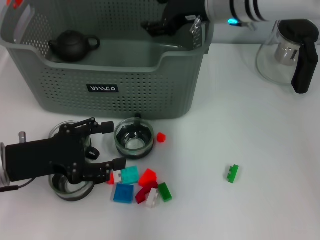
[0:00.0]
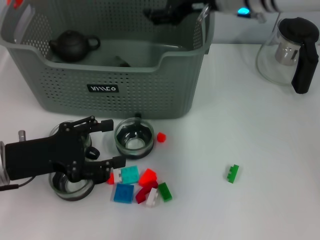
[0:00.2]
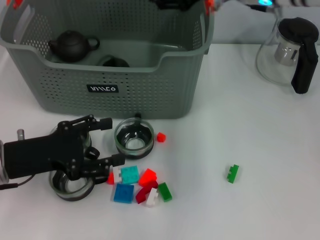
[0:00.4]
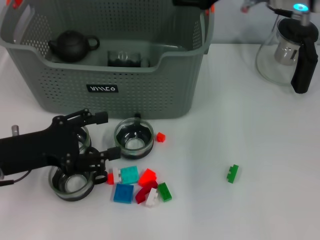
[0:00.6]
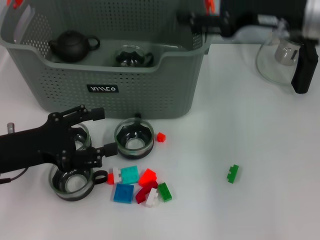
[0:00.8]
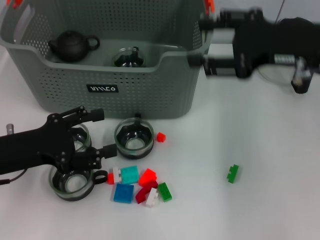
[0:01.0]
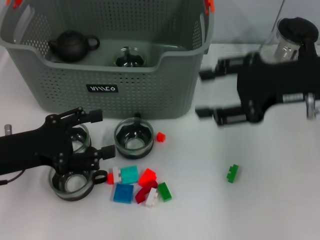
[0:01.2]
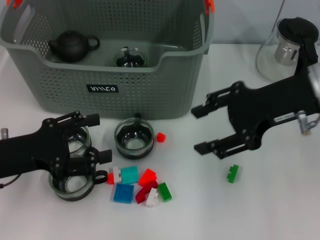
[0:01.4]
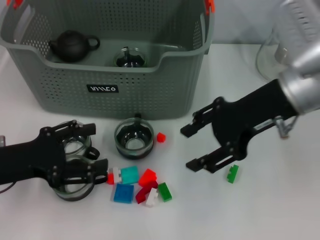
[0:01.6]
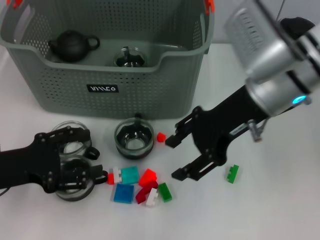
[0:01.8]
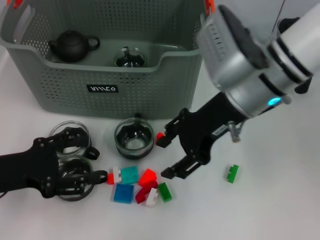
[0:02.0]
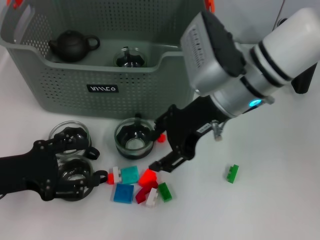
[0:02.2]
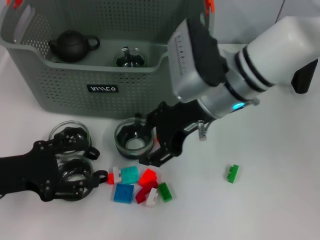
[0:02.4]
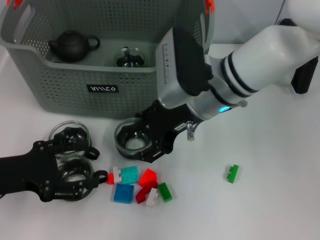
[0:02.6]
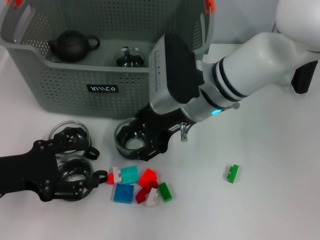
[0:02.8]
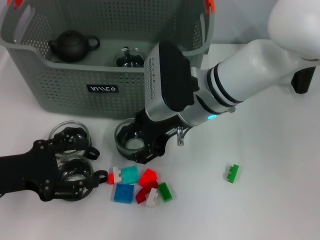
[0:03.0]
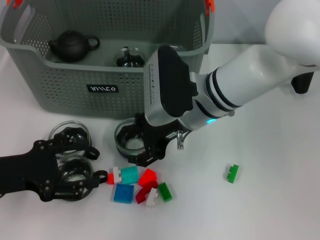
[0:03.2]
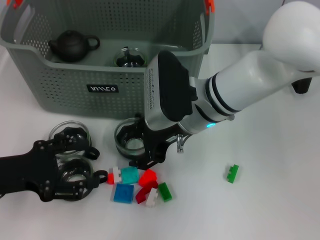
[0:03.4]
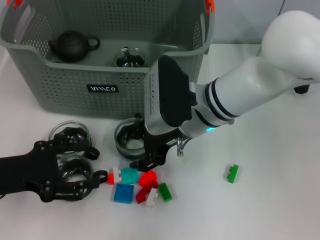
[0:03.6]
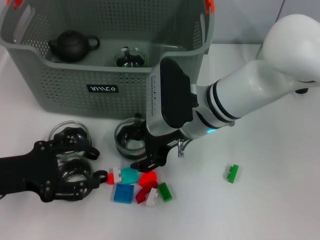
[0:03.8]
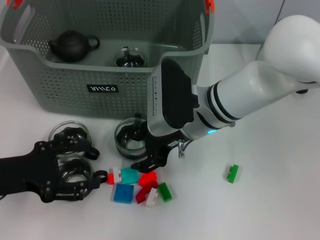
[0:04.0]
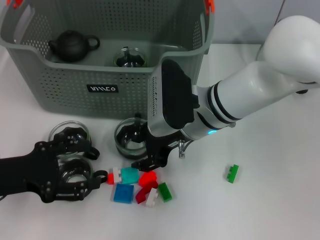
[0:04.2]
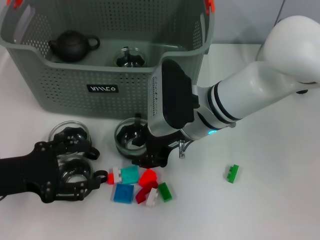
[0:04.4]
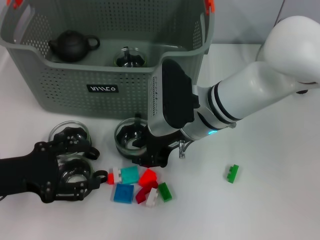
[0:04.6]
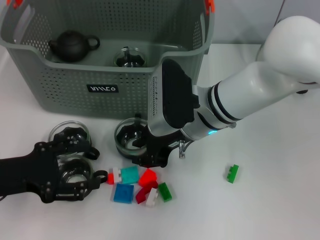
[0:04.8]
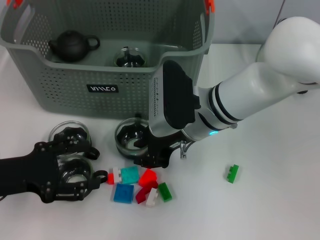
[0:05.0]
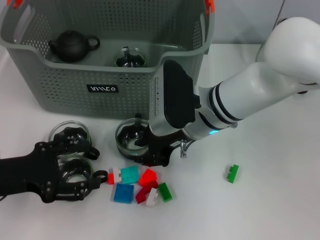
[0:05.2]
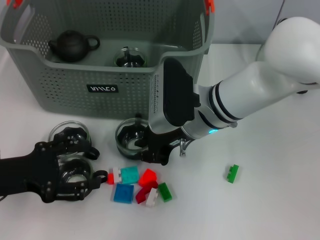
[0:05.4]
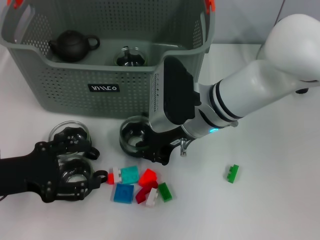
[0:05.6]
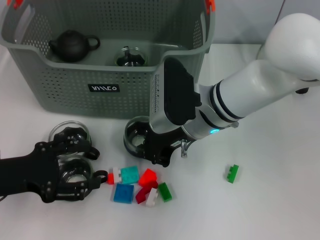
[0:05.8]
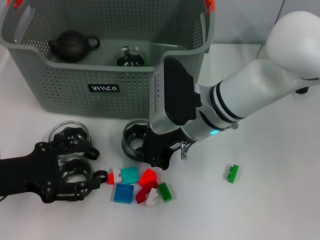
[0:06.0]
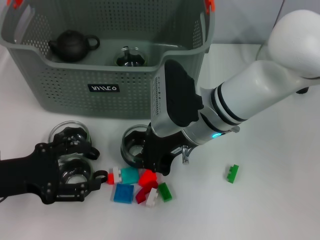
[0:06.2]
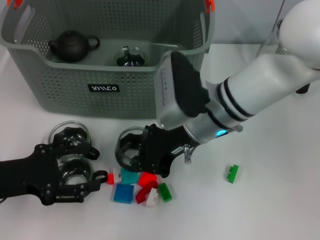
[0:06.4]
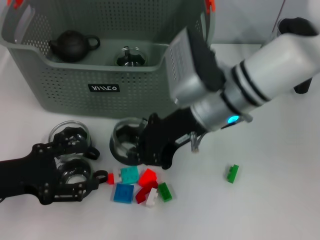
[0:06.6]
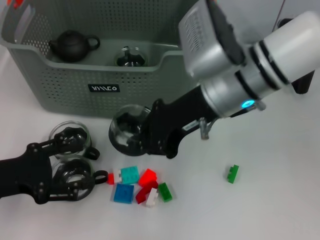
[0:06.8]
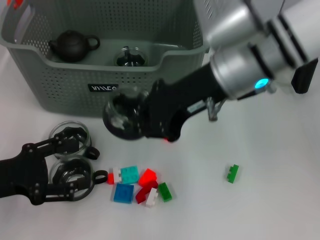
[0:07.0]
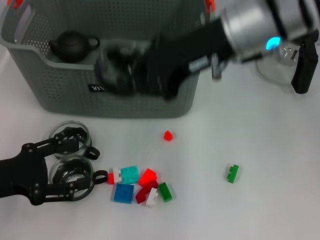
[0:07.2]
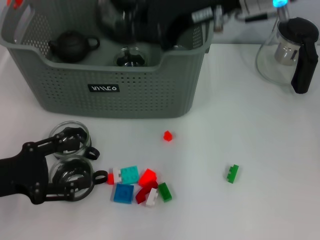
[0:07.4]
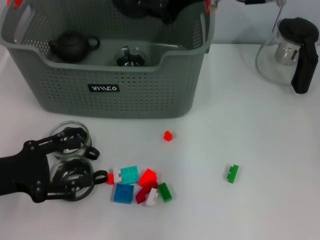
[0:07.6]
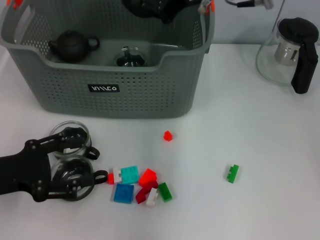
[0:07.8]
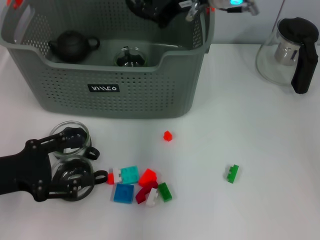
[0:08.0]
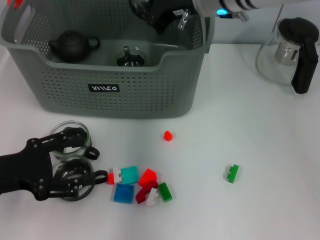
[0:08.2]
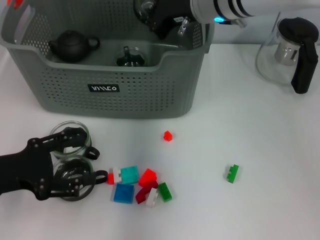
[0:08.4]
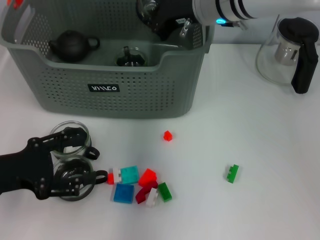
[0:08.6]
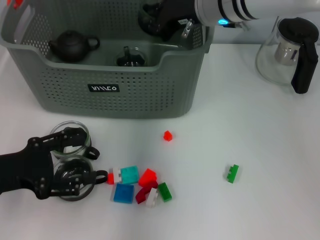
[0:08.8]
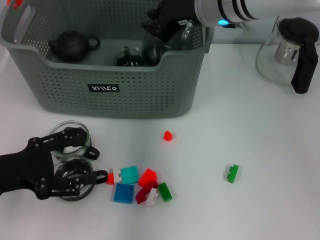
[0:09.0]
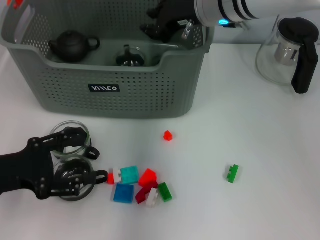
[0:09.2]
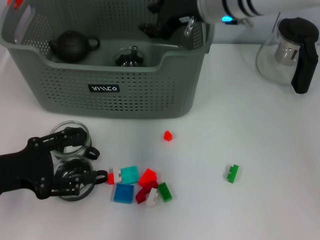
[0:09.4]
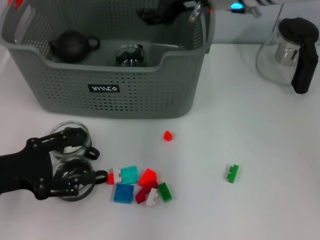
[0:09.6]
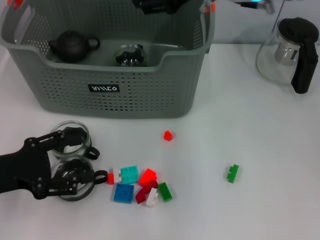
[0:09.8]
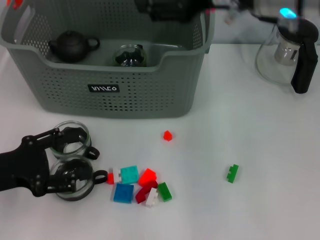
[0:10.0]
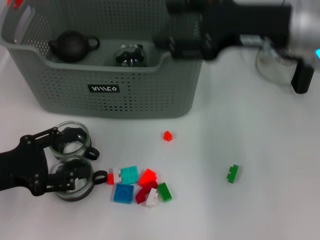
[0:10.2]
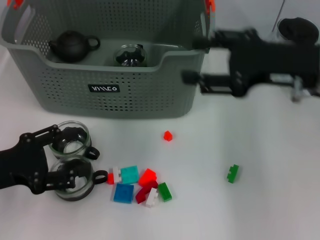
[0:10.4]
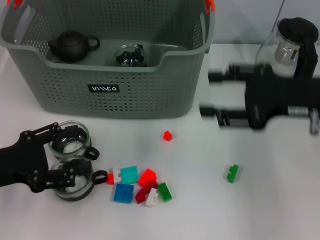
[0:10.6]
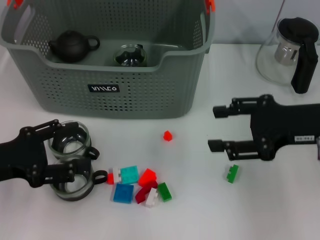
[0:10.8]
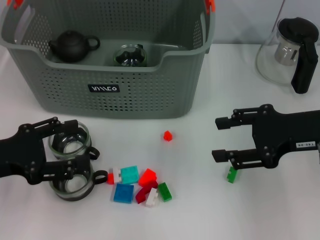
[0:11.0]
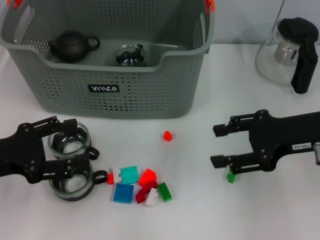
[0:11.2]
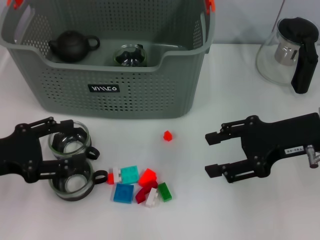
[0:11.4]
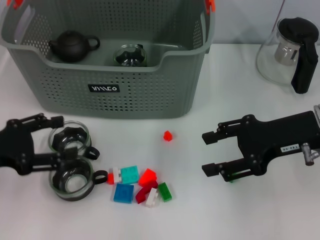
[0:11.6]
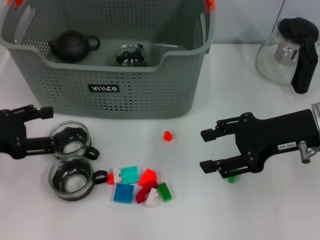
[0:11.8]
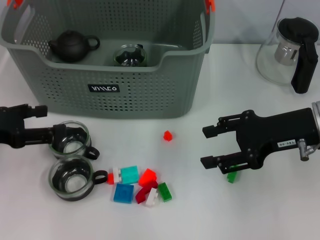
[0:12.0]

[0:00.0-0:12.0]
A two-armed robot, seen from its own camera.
Task of the whole recording: pick up the teacup on the table and place it into the storage bin, pick up the block on the table and place it into the storage bin.
Step, 0:00.0 to 0:05.8: Grasp the cup with right gripper.
Step, 0:06.0 to 0:09.0: Place the cup in the storage box with right gripper.
0:00.0 to 0:01.6: The right gripper heads backward and to the right, covering approximately 15 cm.
0:01.6 to 0:03.0: The right gripper goes about 15 cm to the left and downward.
0:03.0 to 0:04.4: The grippers stay close to where they were, moving slightly.
0:04.4 to 0:06.0: The right gripper closes its fingers.
0:06.0 to 0:07.6: The right gripper heads upward, covering roughly 15 cm.
0:07.6 to 0:09.0: The right gripper moves downward, approximately 10 cm.
0:09.0 to 0:10.4: The right gripper moves to the right and backward, about 20 cm, and opens.
0:10.4 to 0:12.0: The left gripper moves approximately 5 cm; the right gripper goes about 5 cm downward.

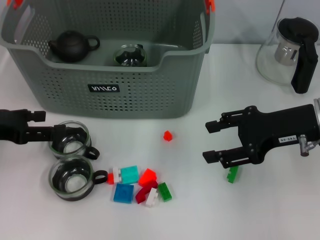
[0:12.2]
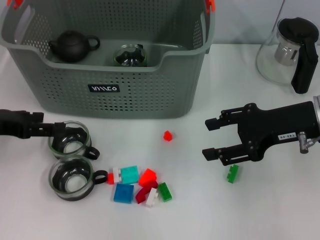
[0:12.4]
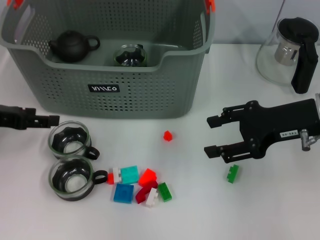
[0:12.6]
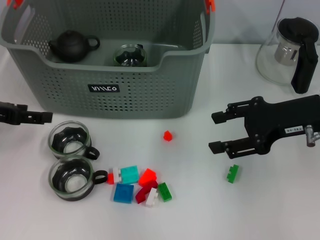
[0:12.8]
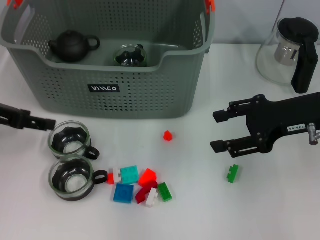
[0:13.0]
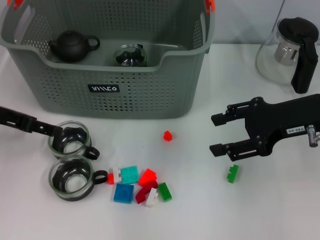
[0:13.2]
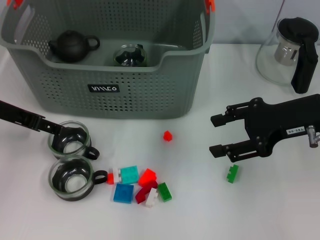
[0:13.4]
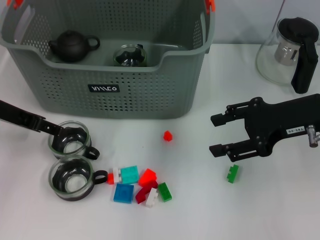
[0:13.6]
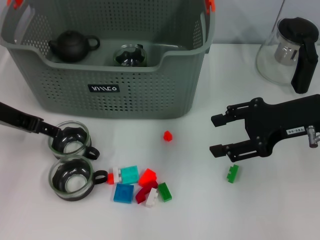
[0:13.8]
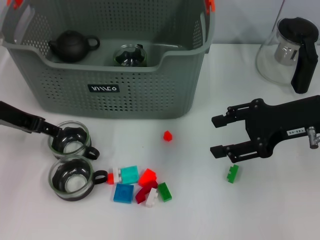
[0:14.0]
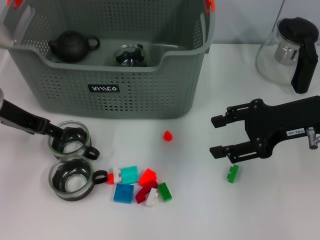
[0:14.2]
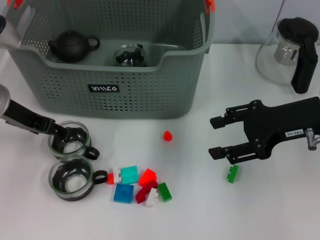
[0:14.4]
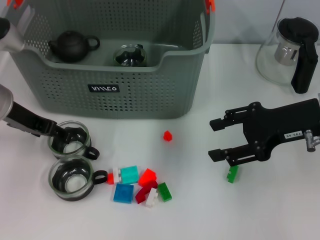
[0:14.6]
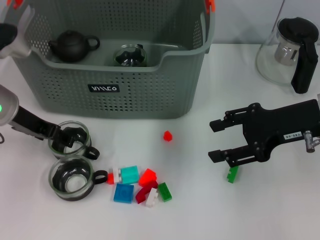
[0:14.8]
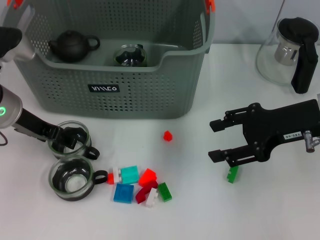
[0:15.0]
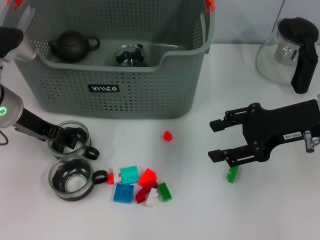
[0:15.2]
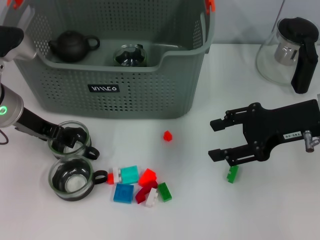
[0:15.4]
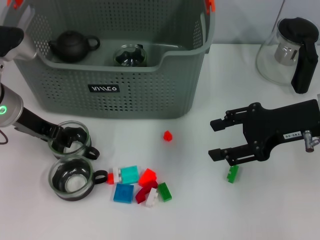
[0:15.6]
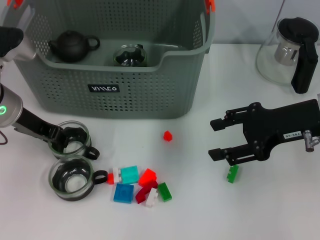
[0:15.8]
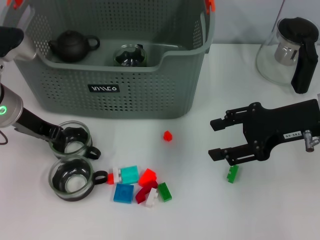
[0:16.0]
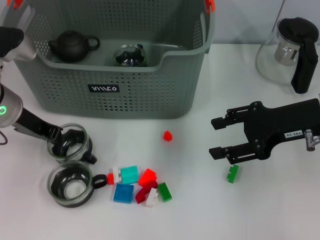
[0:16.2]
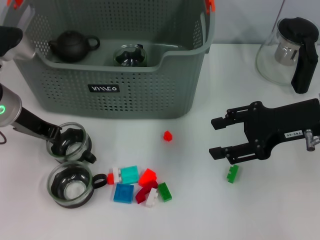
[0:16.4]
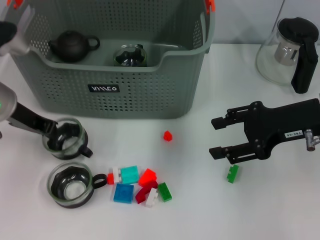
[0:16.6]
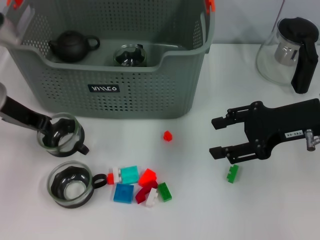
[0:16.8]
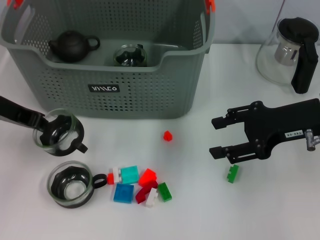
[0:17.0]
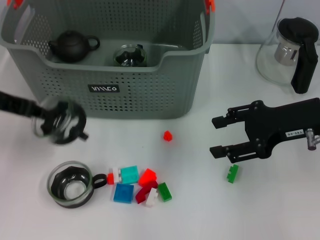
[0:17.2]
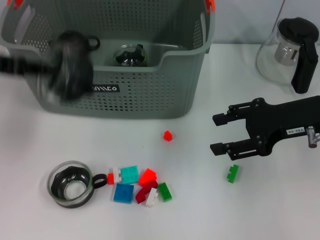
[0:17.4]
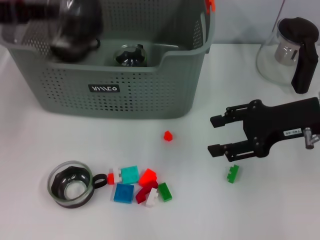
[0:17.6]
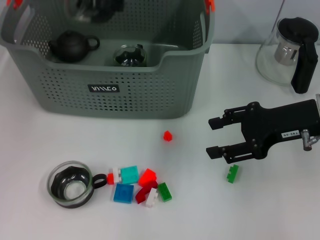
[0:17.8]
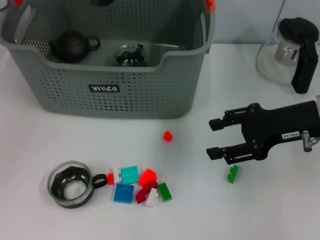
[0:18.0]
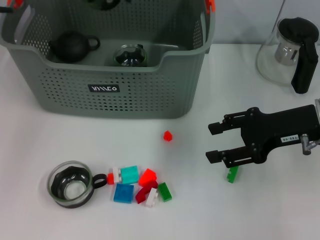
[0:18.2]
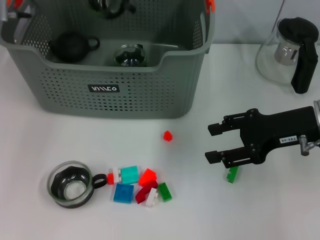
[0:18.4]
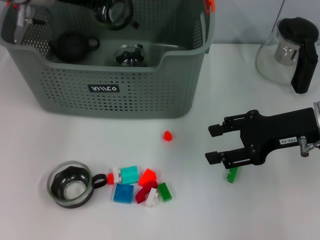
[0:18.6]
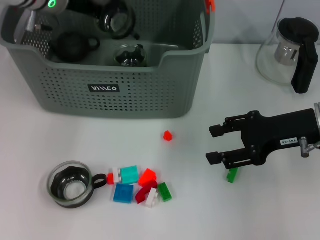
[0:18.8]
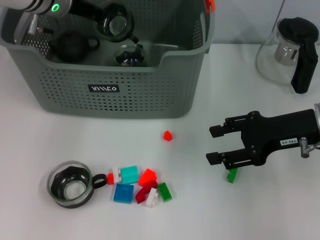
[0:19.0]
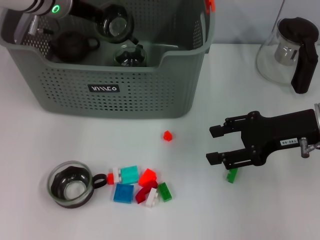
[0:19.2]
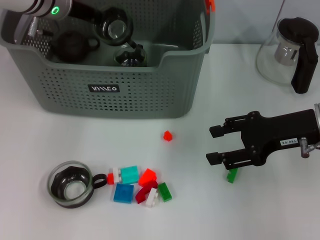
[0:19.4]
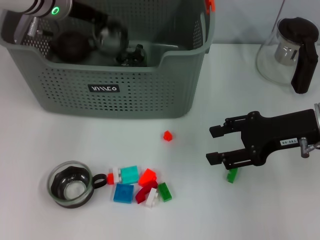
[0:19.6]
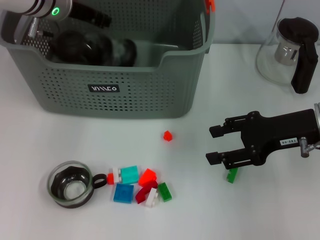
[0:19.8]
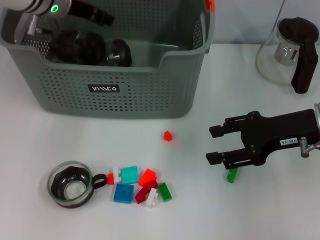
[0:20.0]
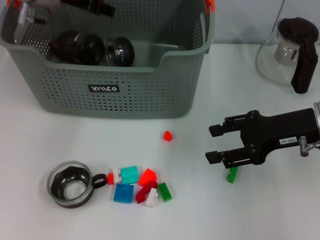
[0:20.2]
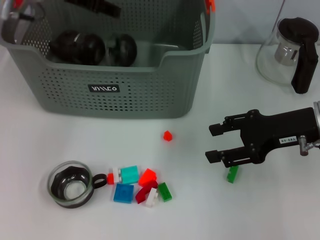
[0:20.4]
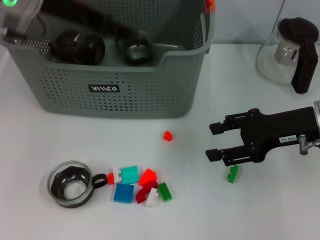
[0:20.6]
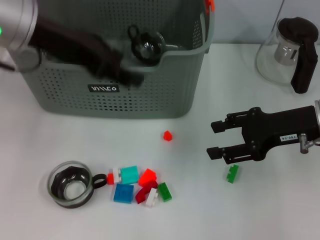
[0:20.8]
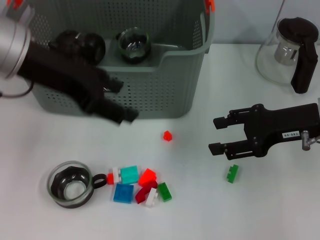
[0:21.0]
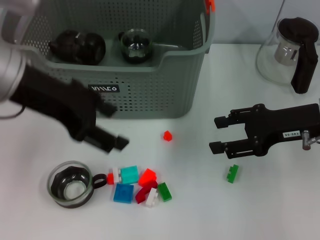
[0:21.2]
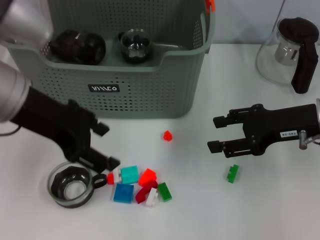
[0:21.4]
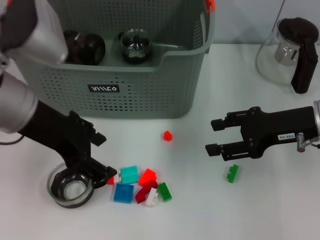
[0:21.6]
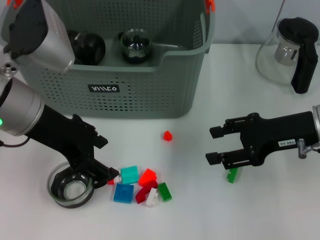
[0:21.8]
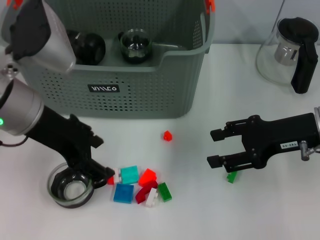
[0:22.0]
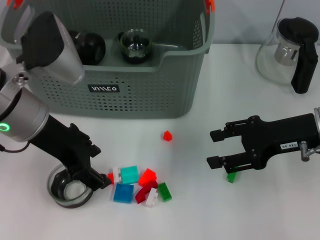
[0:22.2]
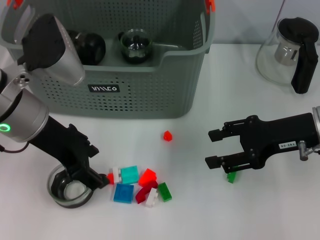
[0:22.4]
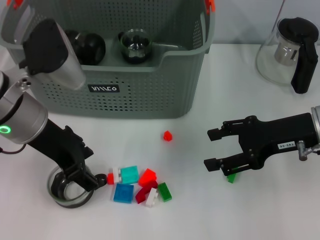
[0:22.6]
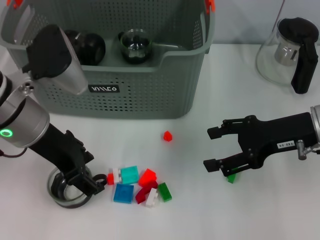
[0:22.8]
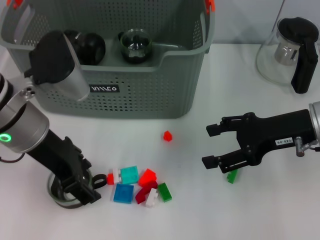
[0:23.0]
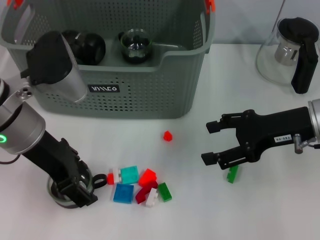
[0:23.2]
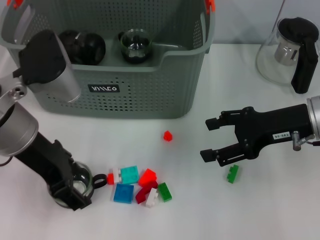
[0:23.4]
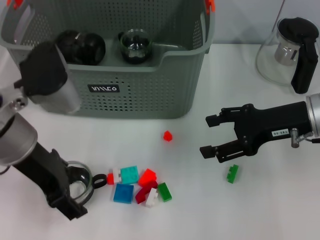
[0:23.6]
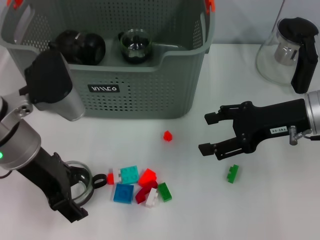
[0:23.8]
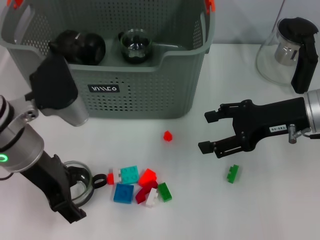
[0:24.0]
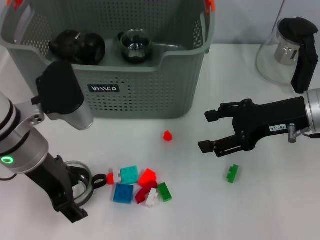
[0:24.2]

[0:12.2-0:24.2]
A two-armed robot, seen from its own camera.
Task of the whole recording: pick up the teacup on the table and place it into the storage bin, pick up the block on the table and place it into the storage bin.
Step, 0:12.2 to 0:16.4: Grasp the cup with left gripper.
Step, 0:16.6 to 0:19.6: Place the cup in the storage box with left gripper.
0:12.2 to 0:13.8: The left gripper heads forward, covering about 5 cm.
0:13.8 to 0:15.2: The grippers move only a little.
0:15.2 to 0:16.6: The left gripper closes.
0:16.6 to 0:18.2: The left gripper is displaced upward and forward by approximately 15 cm.
0:18.2 to 0:19.8: The left gripper moves downward and to the right, roughly 10 cm.
0:19.8 to 0:21.2: The left gripper heads backward, covering roughly 15 cm, and opens its fingers.
0:21.2 to 0:22.6: The left gripper shifts roughly 5 cm downward.
